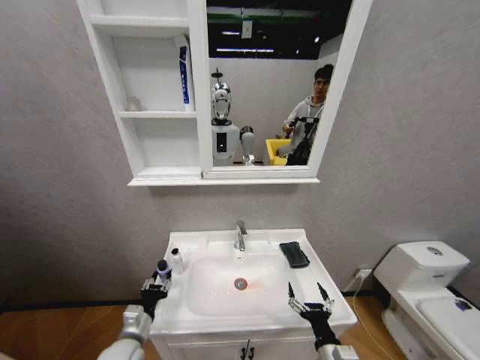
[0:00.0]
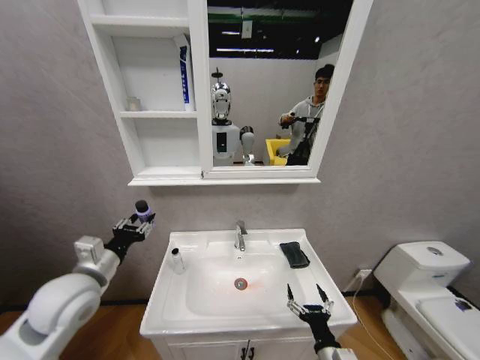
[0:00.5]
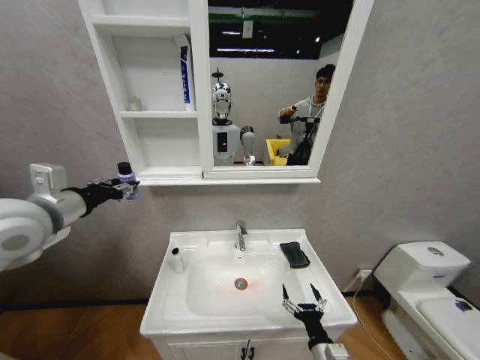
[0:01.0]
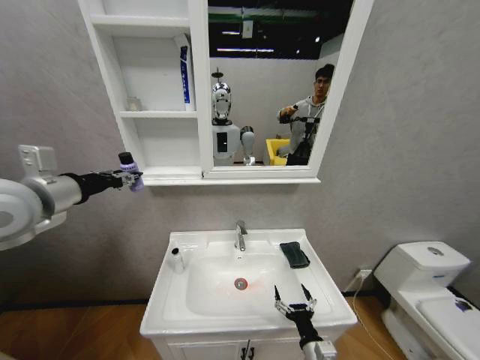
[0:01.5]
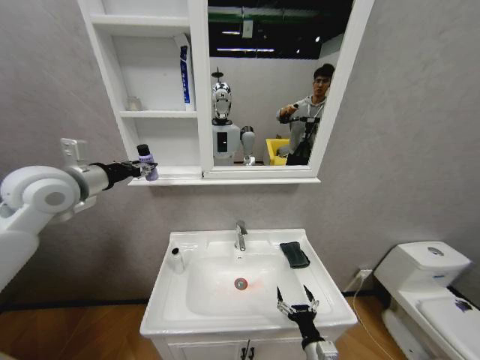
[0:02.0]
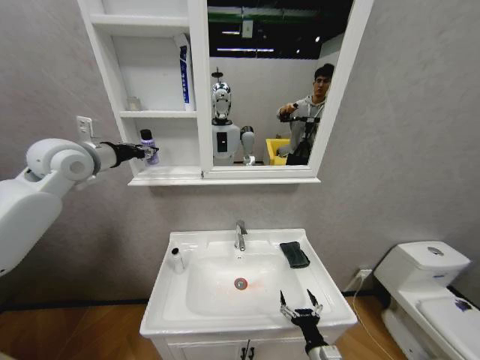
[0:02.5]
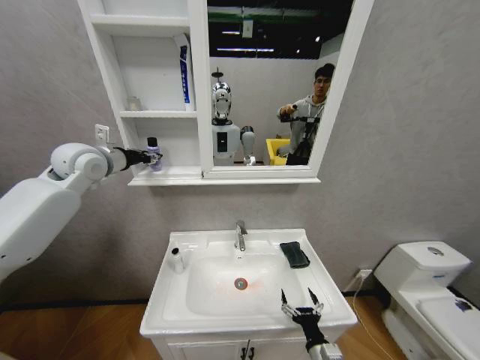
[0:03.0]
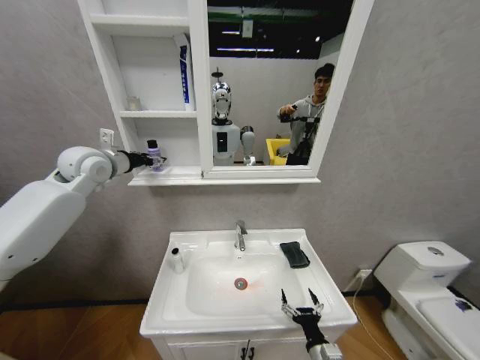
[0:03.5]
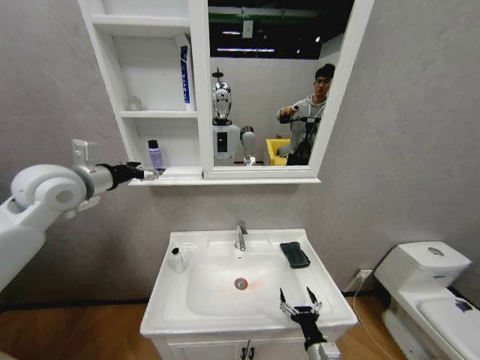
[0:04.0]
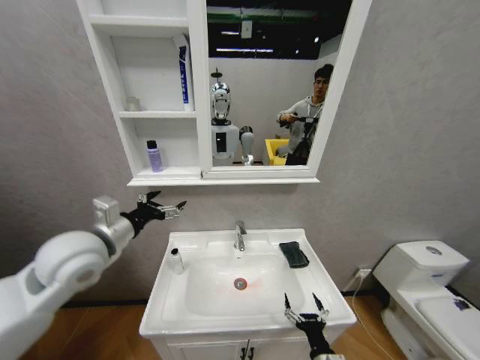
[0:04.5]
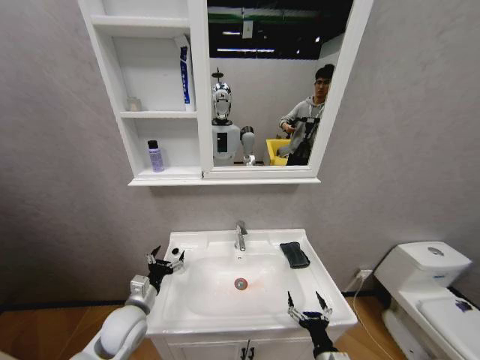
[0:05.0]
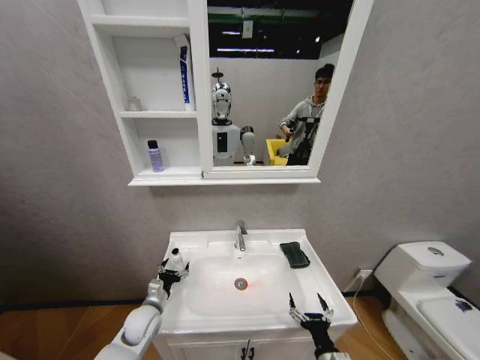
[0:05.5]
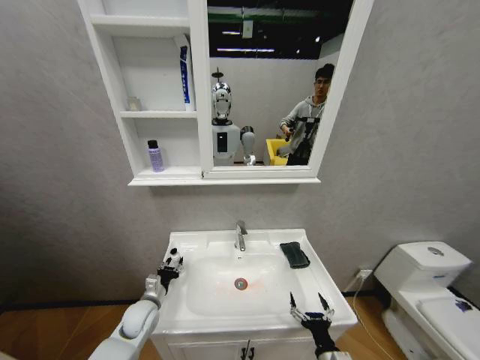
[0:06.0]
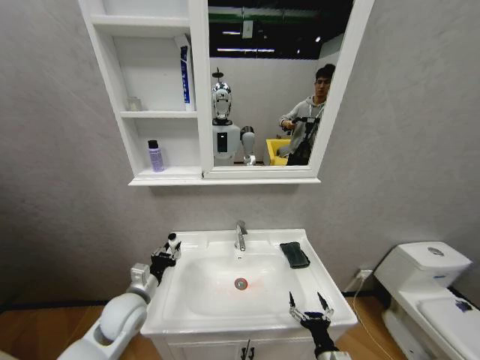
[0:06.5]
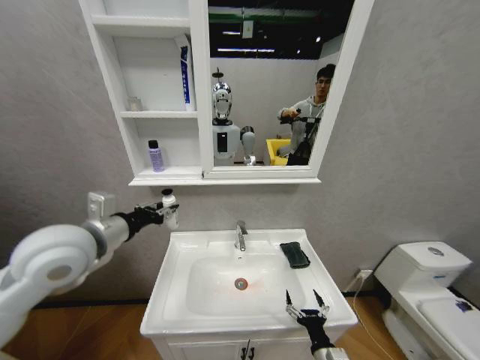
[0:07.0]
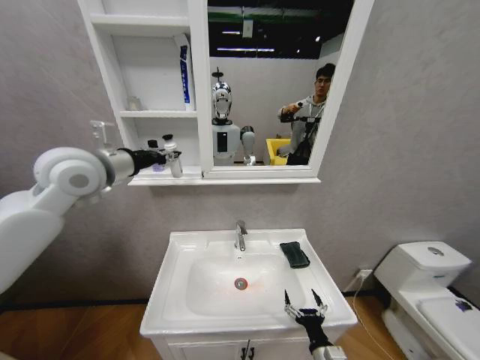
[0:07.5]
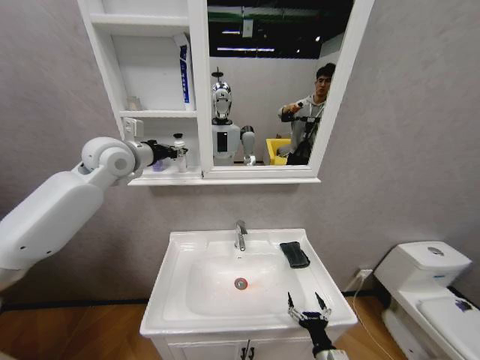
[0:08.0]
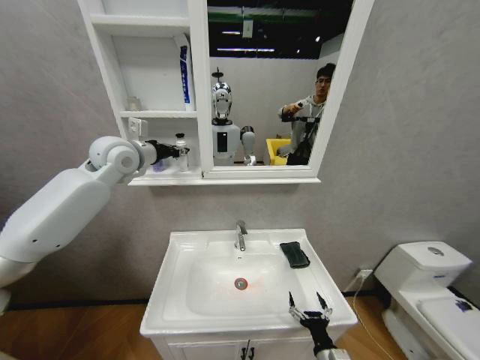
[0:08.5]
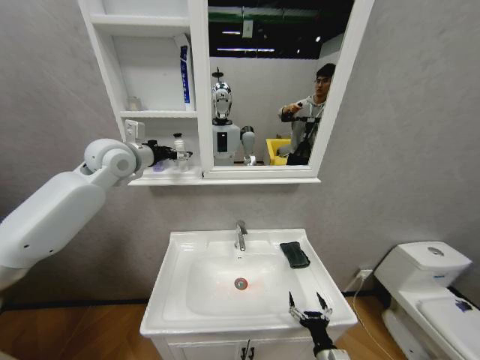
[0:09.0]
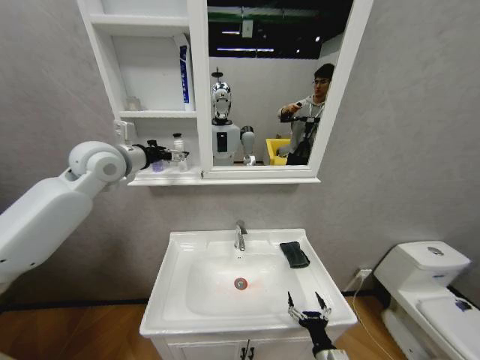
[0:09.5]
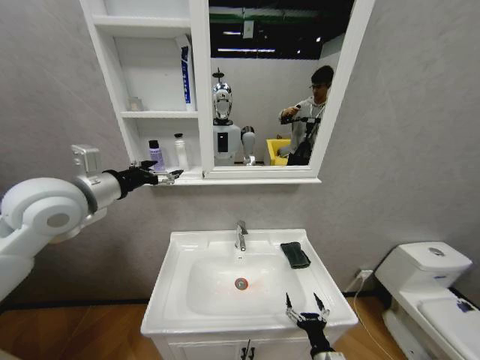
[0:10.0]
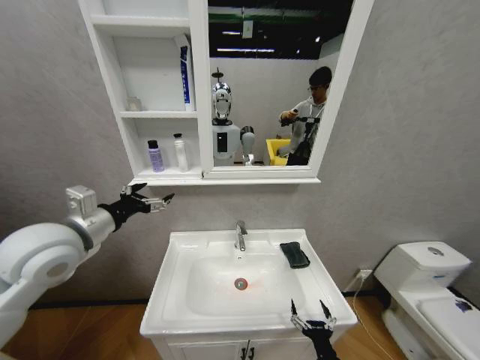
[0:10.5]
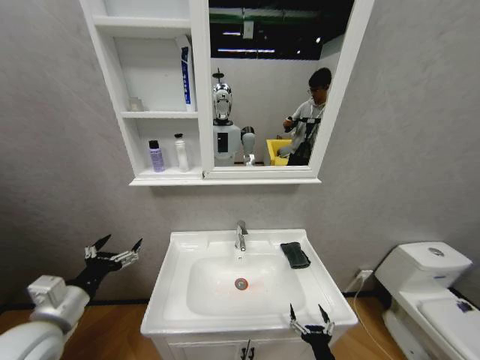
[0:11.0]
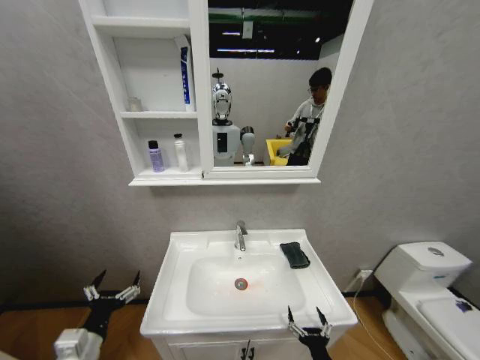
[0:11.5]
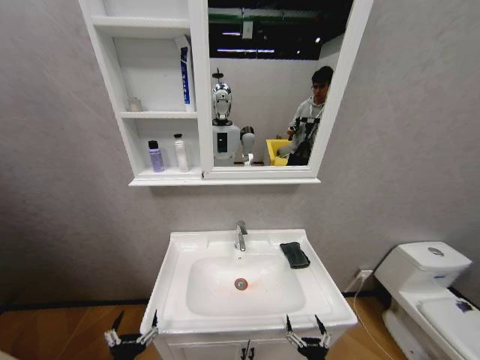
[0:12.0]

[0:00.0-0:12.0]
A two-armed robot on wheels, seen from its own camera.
Task of the whole recording: Move facial cleanser and shampoo from washbasin to cabinet, then wipe washbasin with towel.
0:00.0 to 0:02.0: The left gripper heads upward, covering approximately 40 cm.
0:02.0 to 0:04.0: The left gripper goes forward and returns, roughly 10 cm each way, and opens up.
0:04.0 to 0:06.0: The left gripper heads downward, covering some 40 cm, and closes its fingers.
0:06.0 to 0:08.0: The left gripper moves upward, some 50 cm.
0:08.0 to 0:10.0: The left gripper is displaced backward by some 15 cm, and opens.
0:10.0 to 0:12.0: The right gripper ends up approximately 5 cm from where it was, while the left gripper goes roughly 50 cm downward and backward.

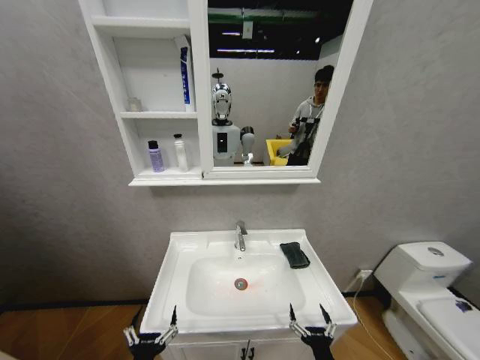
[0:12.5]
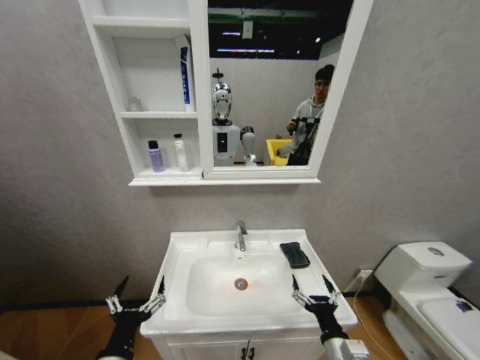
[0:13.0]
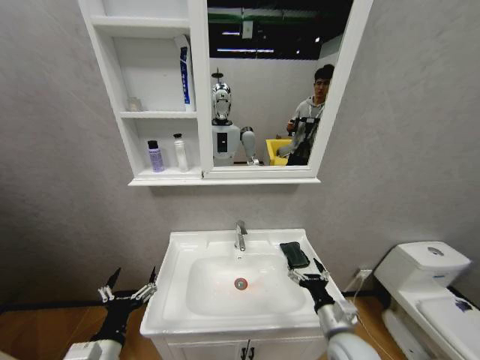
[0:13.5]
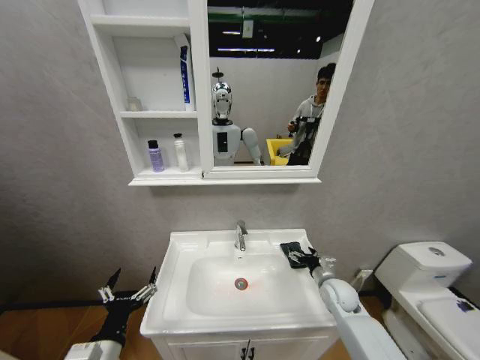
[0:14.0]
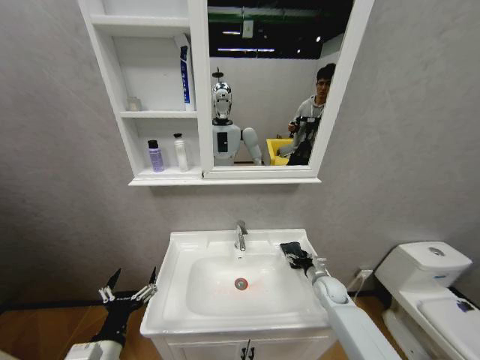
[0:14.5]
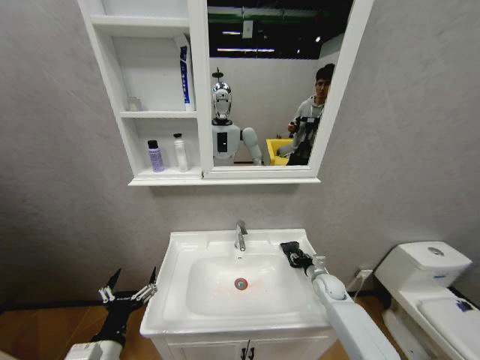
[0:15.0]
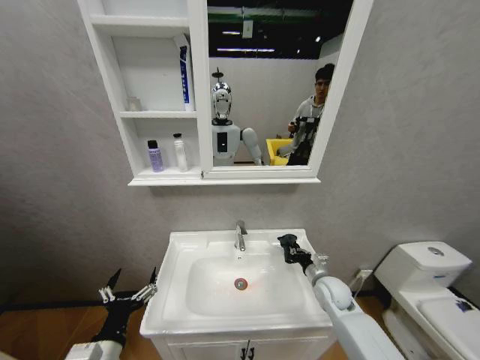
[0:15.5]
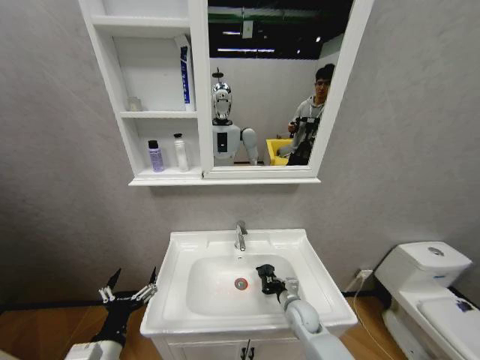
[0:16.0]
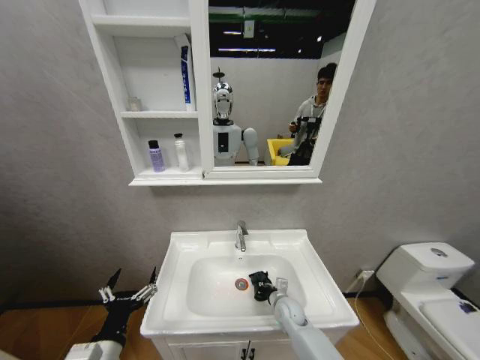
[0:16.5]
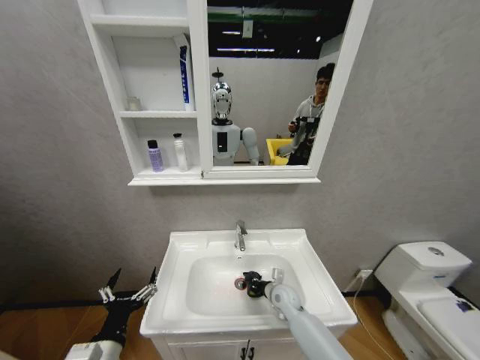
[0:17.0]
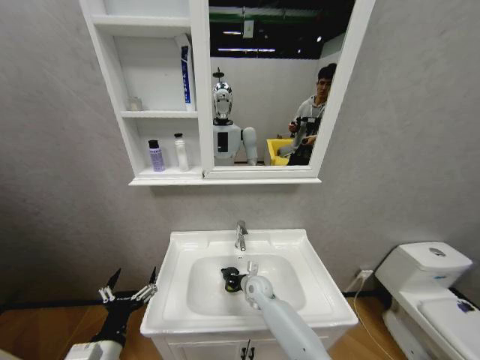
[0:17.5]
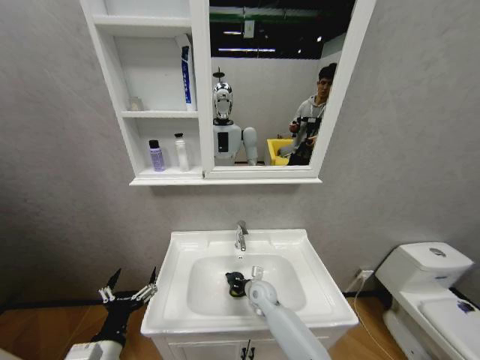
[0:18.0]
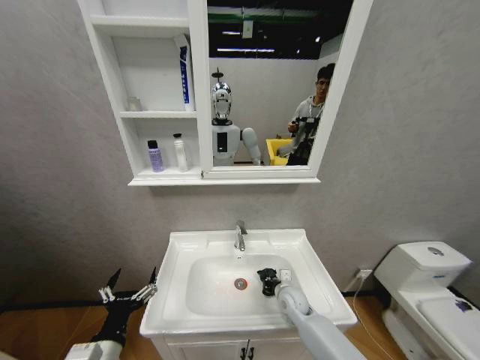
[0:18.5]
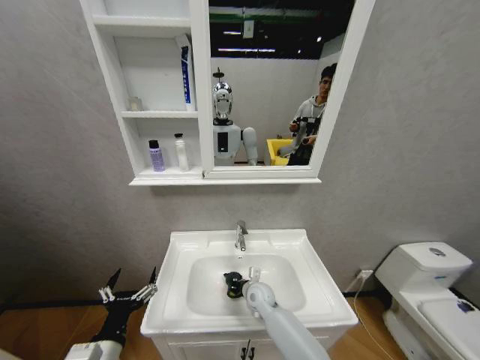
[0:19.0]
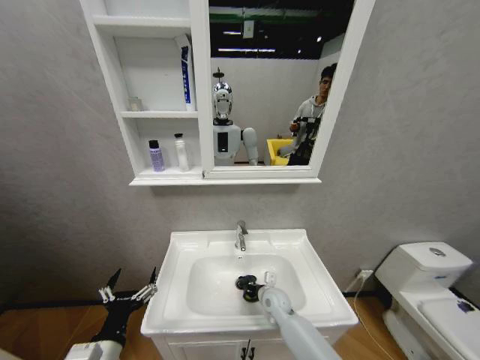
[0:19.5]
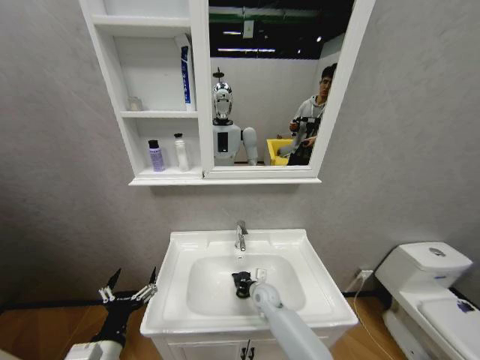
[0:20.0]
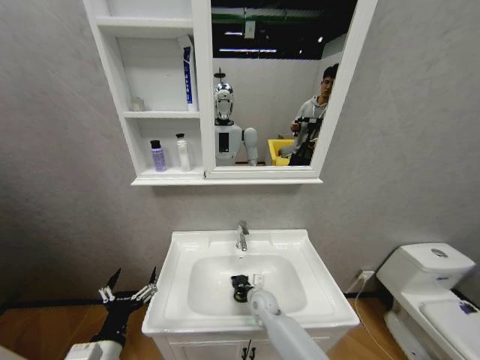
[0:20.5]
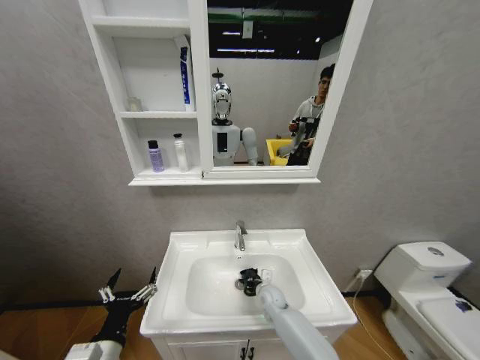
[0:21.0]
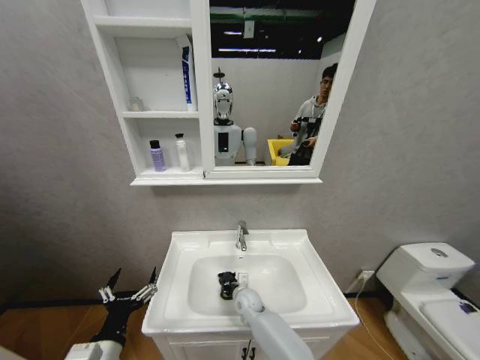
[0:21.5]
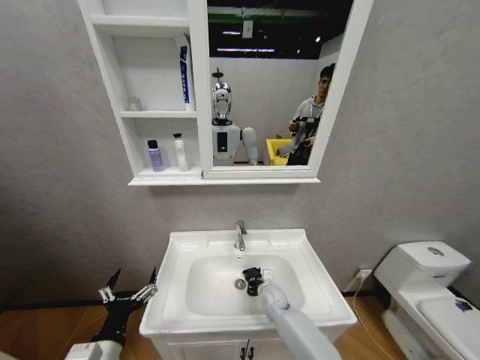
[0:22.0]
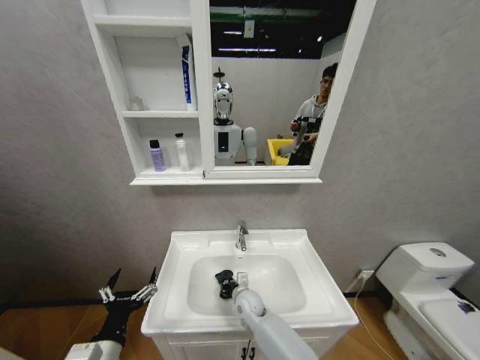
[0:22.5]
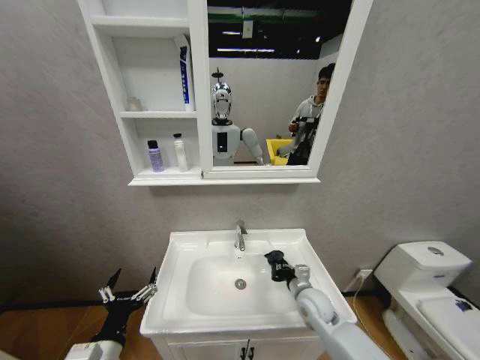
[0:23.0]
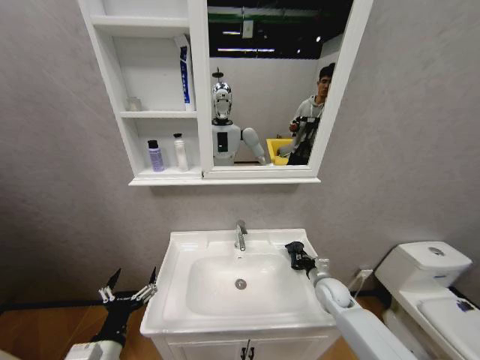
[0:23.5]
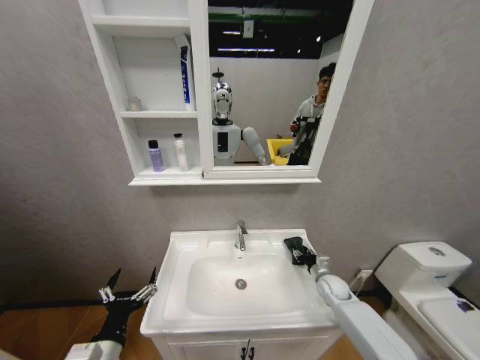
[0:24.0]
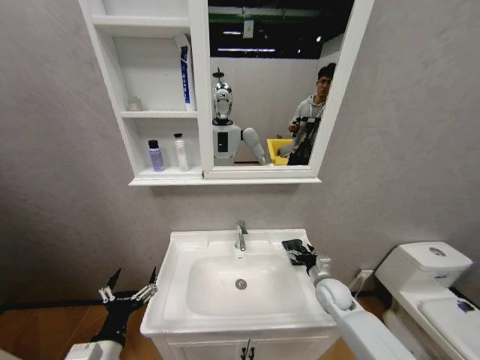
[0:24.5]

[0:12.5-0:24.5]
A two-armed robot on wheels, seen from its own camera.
Task of the whole recording: Move facial cleanser and shampoo from washbasin to cabinet, then wipe washbasin with towel.
0:12.5 to 0:14.5: The right gripper travels forward by some 30 cm. The left gripper travels upward by approximately 10 cm.
0:14.5 to 0:16.5: The right gripper moves to the left, some 15 cm, and closes up.
0:16.5 to 0:18.5: The right gripper travels to the left and back again, roughly 10 cm each way.
0:18.5 to 0:20.5: The right gripper swings left and right, roughly 10 cm each way, with 2 reversals.
0:20.5 to 0:22.5: The right gripper swings left and right, some 10 cm each way, with 3 reversals.
0:22.5 to 0:24.5: The right gripper goes about 25 cm to the right, and opens.

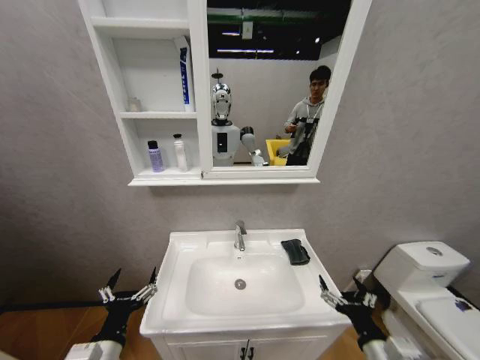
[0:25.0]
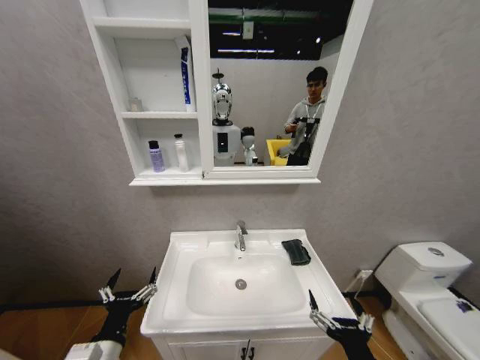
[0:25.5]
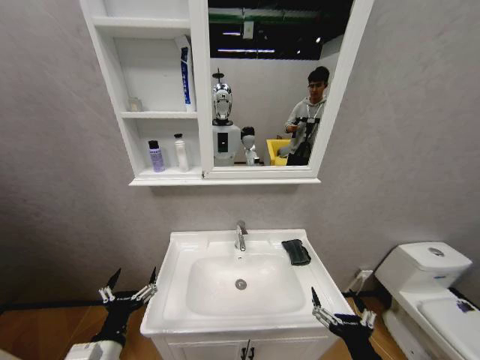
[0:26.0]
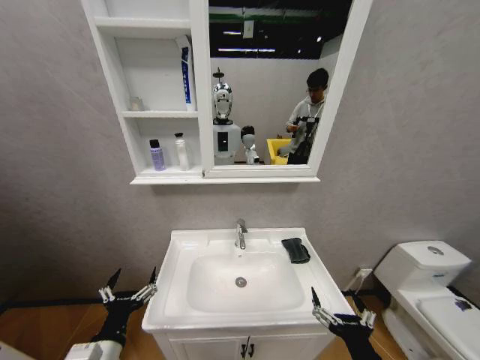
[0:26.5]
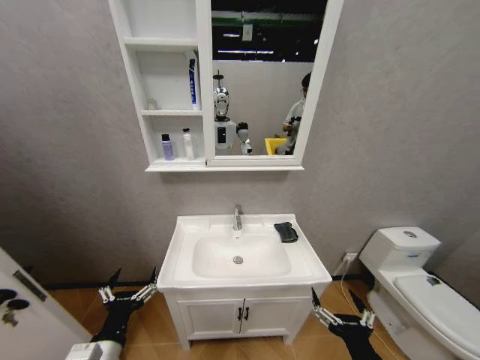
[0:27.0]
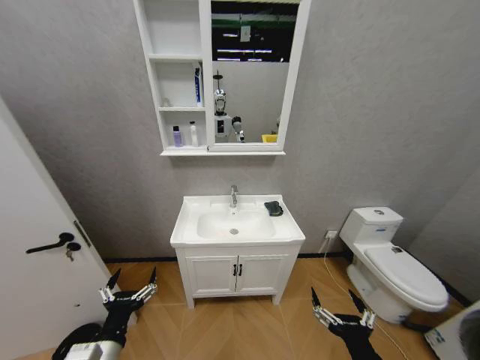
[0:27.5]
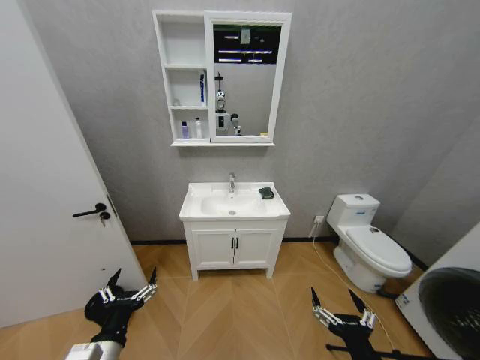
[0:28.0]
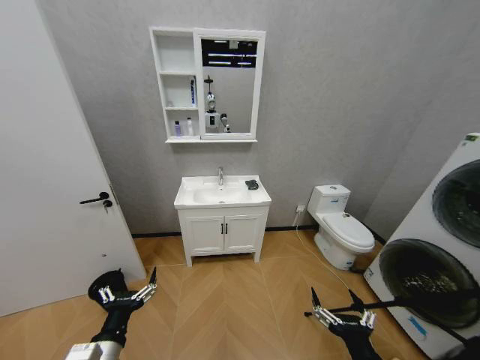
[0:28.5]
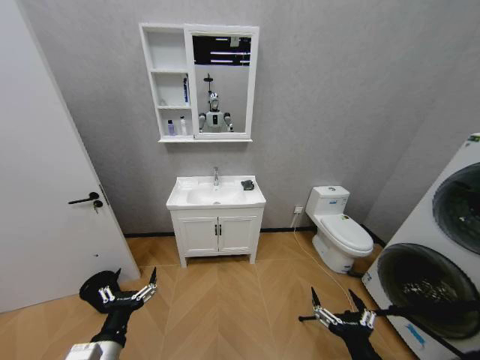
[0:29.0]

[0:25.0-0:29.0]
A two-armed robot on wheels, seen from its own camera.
Task of the whole recording: Move facial cleanser and shampoo from washbasin to cabinet, then wipe washbasin with towel.
0:25.0 to 0:27.0: The right gripper goes about 5 cm to the left.
